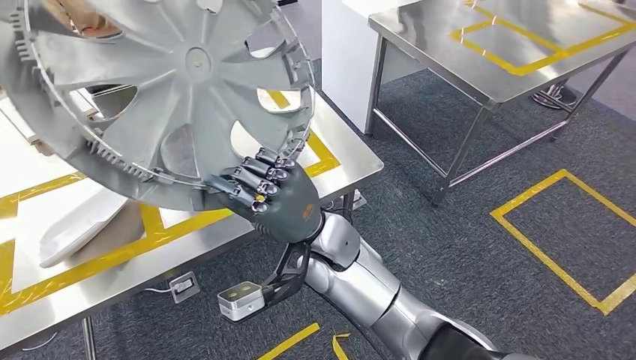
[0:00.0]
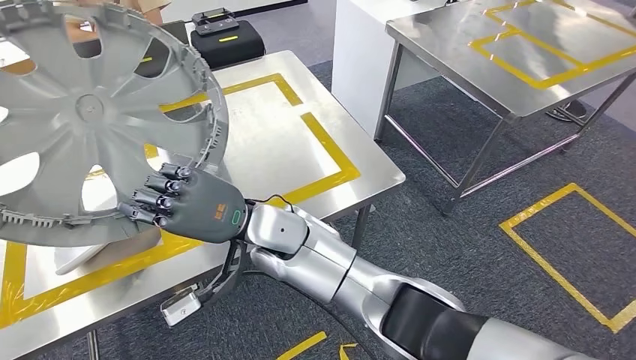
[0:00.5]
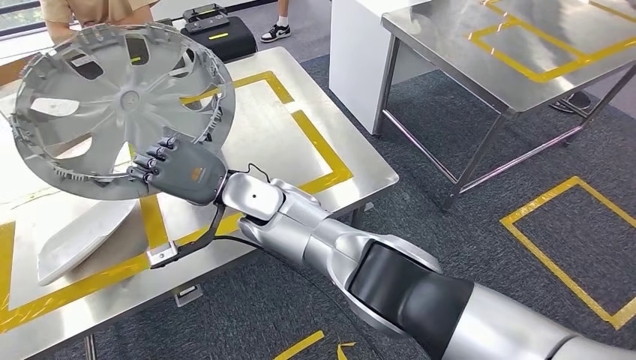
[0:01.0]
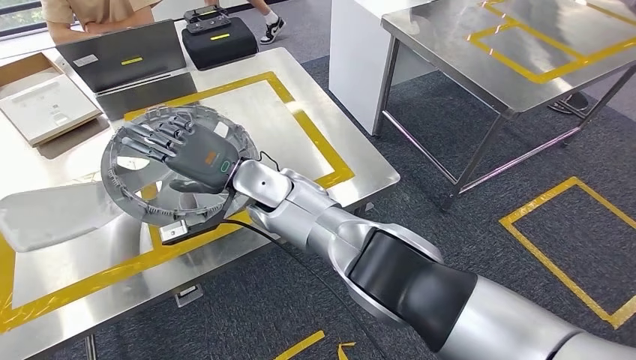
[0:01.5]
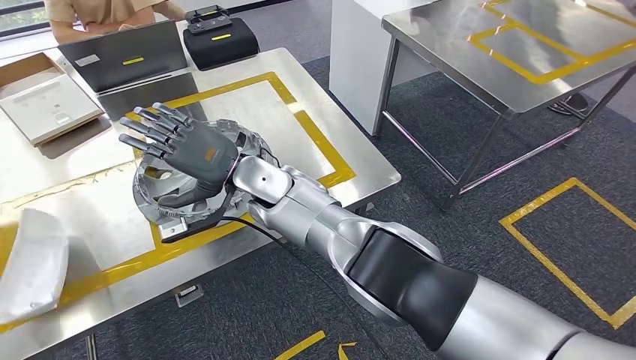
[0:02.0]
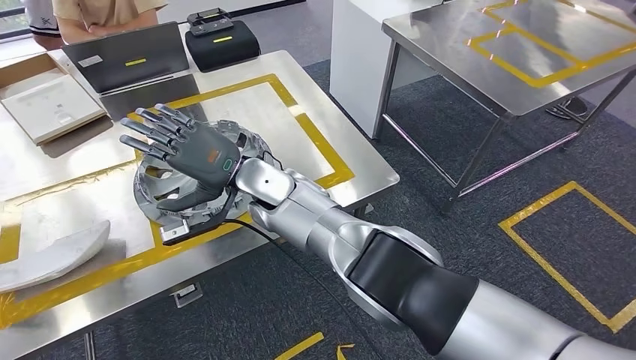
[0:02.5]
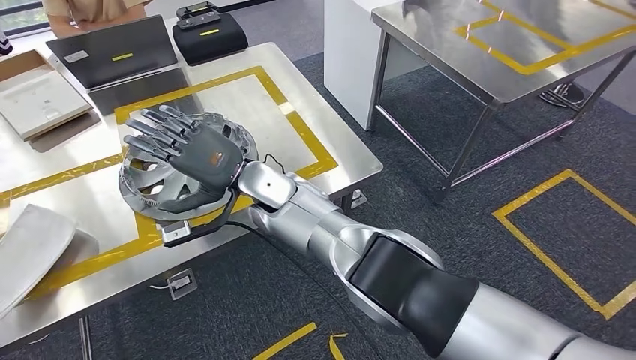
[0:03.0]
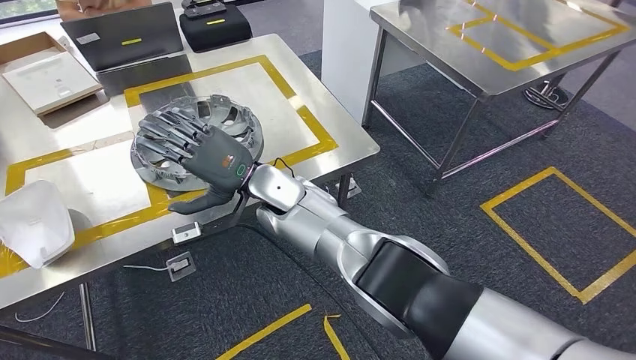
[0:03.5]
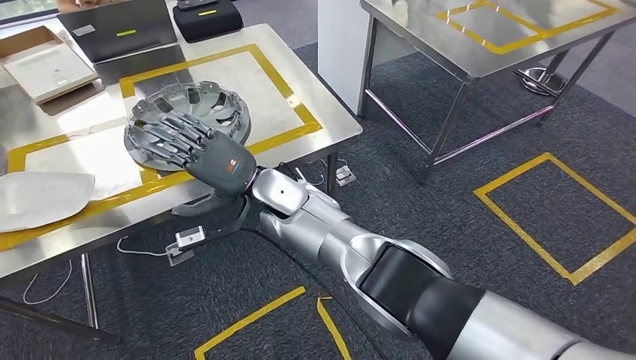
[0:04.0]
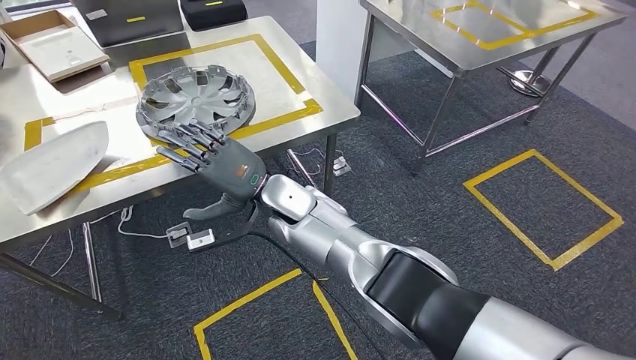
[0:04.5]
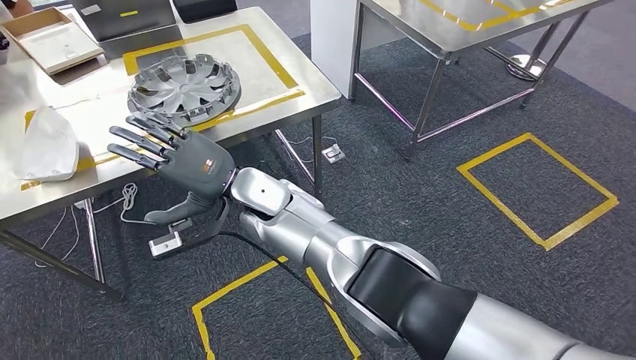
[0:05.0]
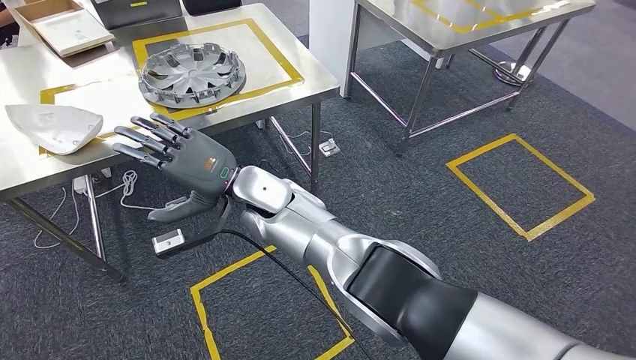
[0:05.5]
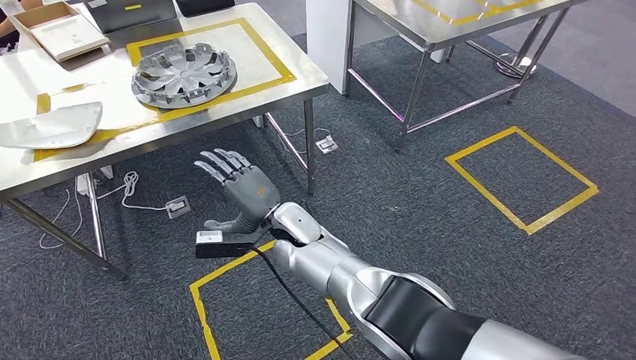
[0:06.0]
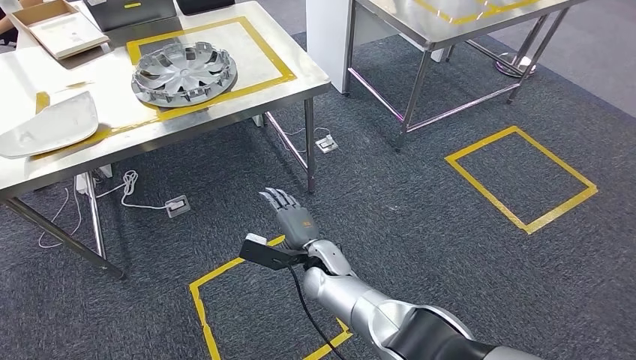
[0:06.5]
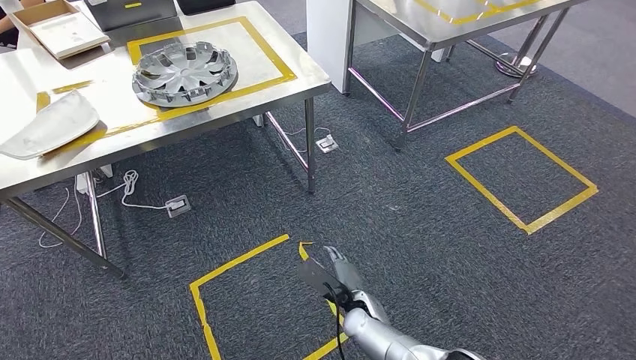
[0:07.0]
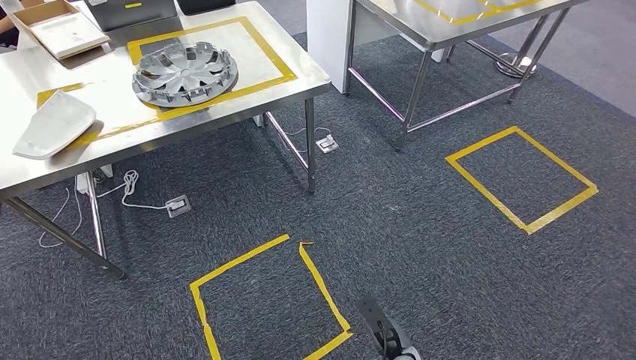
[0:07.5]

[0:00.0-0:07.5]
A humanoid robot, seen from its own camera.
Step, 0:01.0 to 0:03.0: Insert the small component into the corresponding slot on the workbench.
Step, 0:03.5 to 0:07.5: Return to the initial position at the workbench.
